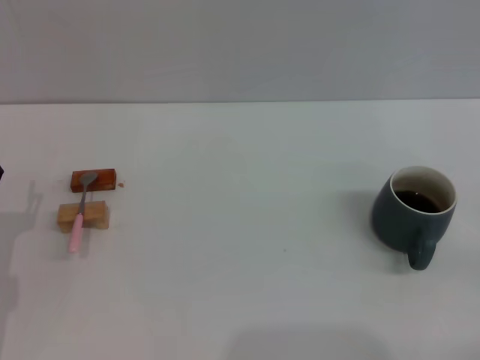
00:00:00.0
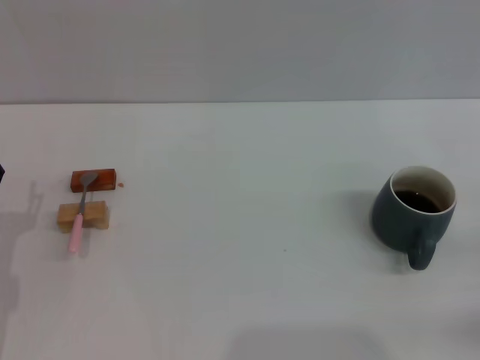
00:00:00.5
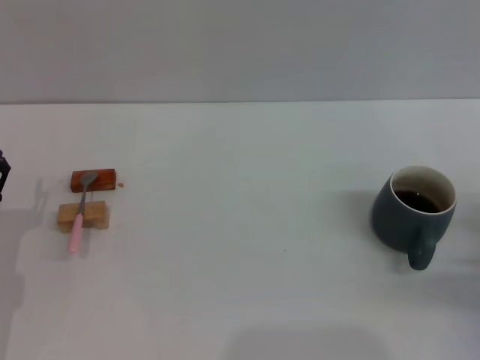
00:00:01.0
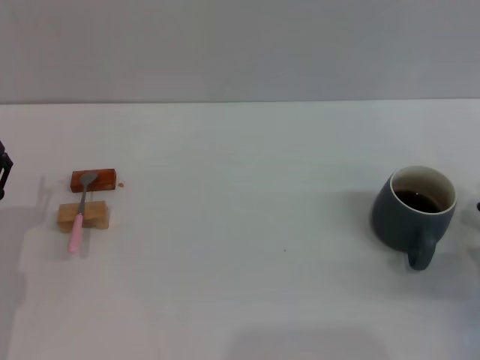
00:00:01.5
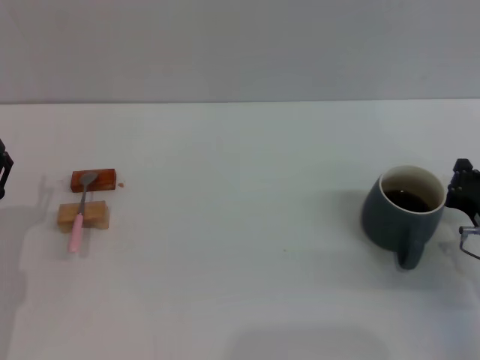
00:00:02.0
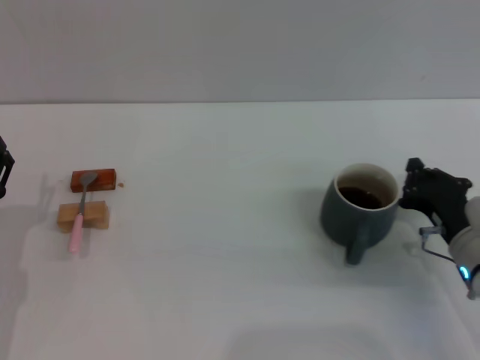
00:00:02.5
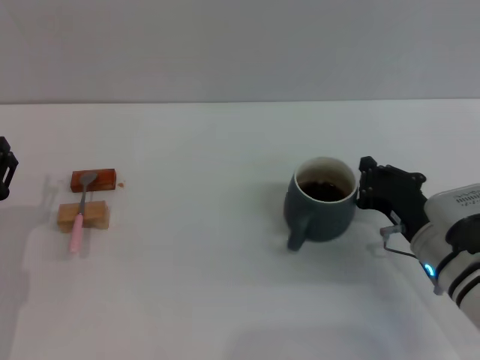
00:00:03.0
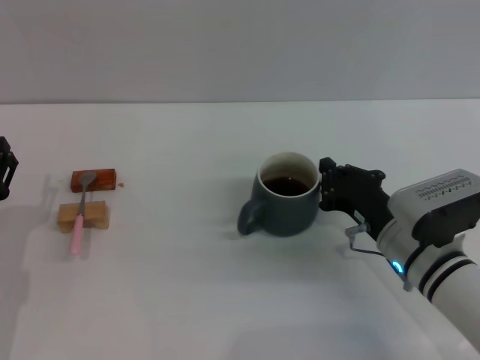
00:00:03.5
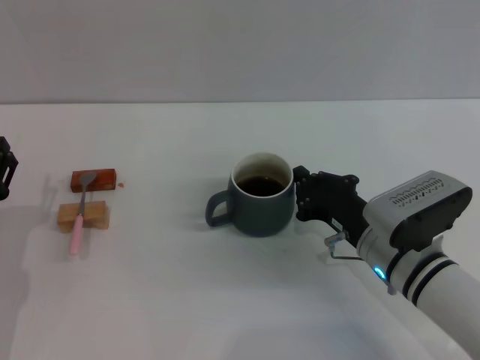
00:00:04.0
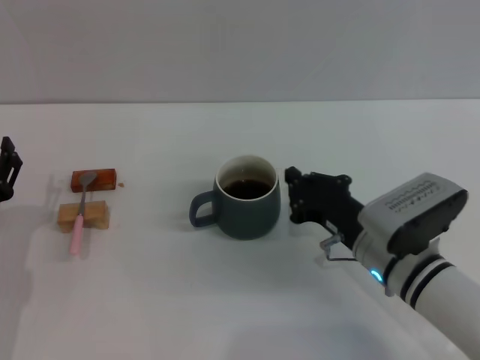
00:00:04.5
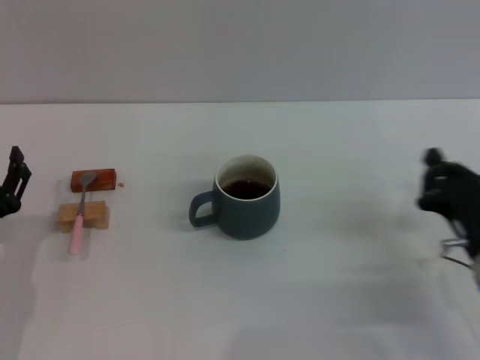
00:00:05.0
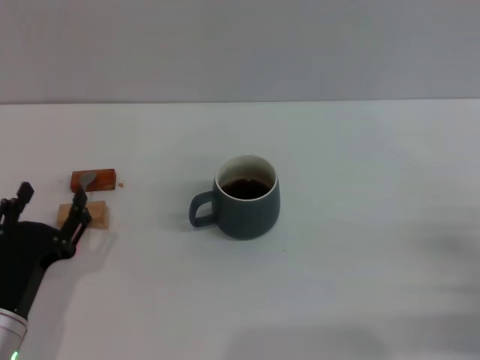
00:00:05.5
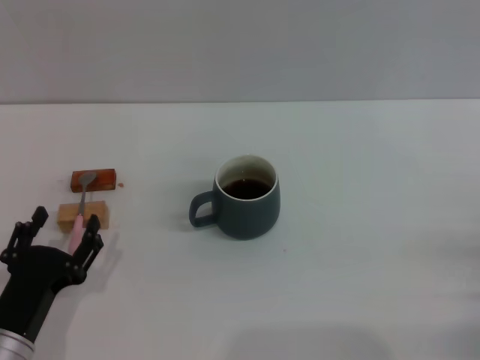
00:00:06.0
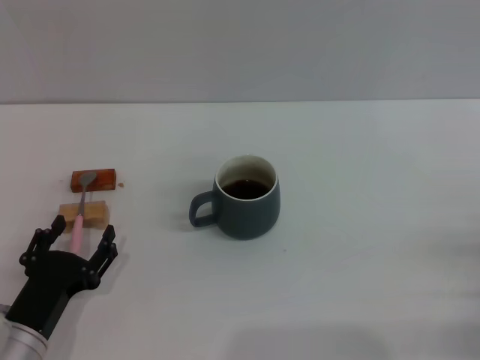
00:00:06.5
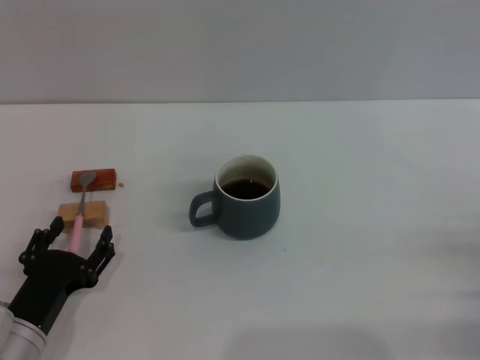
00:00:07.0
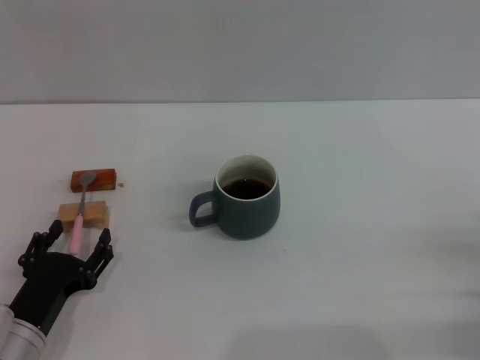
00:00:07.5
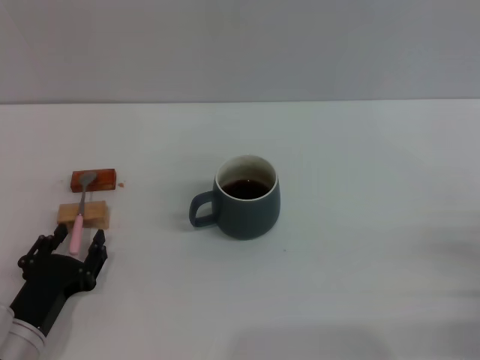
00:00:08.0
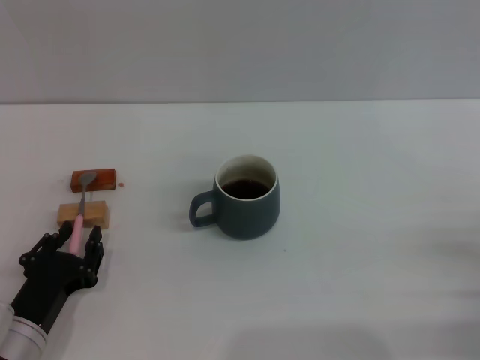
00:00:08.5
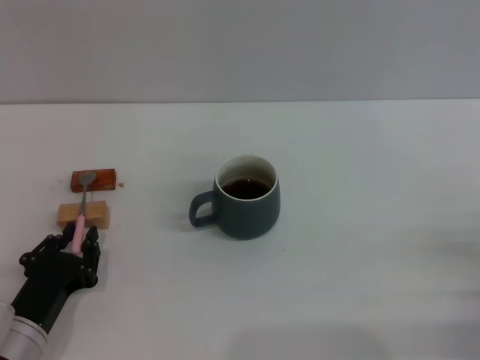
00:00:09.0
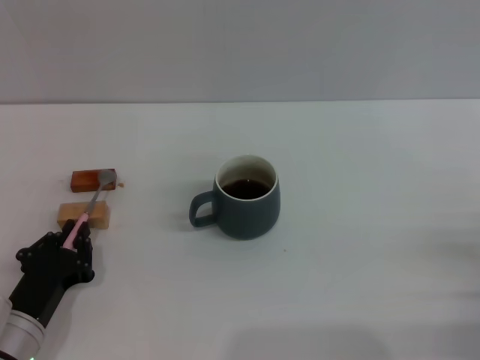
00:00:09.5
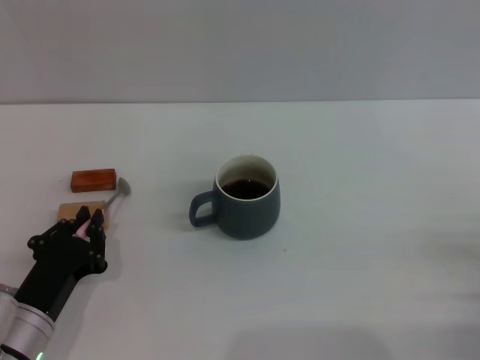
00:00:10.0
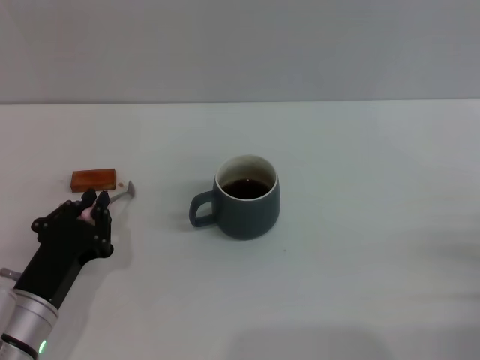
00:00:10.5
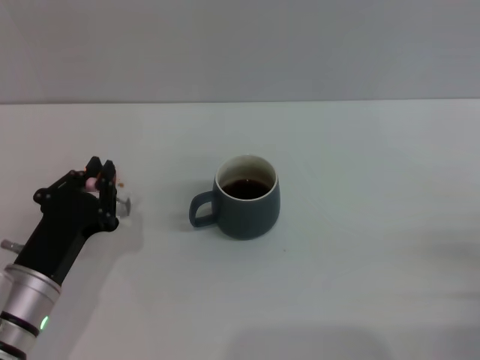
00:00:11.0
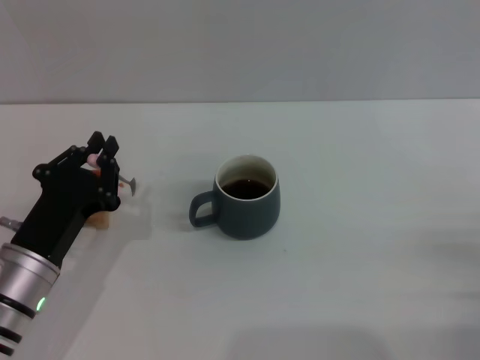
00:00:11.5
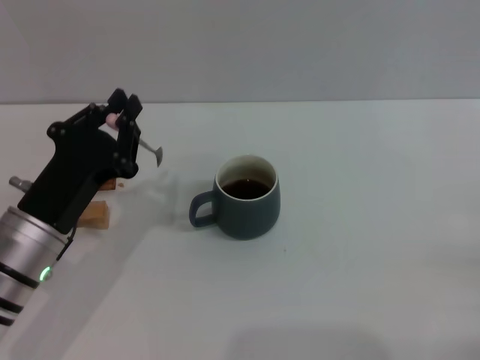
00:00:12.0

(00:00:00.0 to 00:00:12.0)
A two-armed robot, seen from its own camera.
Task of the whole recording: Move the grey cup to the center, lift the pink spoon, stir it three times in the cup, and put the spoon into the cup.
Step, 00:00:00.0 - 00:00:04.5: Move the cup with coffee to the center of view with the right gripper.
Step, 00:00:05.0 - 00:00:11.5: Pick up the spoon with the left gripper.
00:00:00.0 - 00:00:02.0: The right gripper moves forward and to the left, roughly 15 cm.
00:00:02.0 - 00:00:04.0: The right gripper moves to the left, some 10 cm.
00:00:04.0 - 00:00:06.0: The left gripper heads backward and to the right, covering roughly 10 cm. The right gripper shifts some 20 cm to the right and backward.
00:00:06.0 - 00:00:08.0: The grippers move only a little.
00:00:08.0 - 00:00:10.0: The left gripper closes up.
00:00:10.0 - 00:00:12.0: The left gripper goes some 10 cm upward.

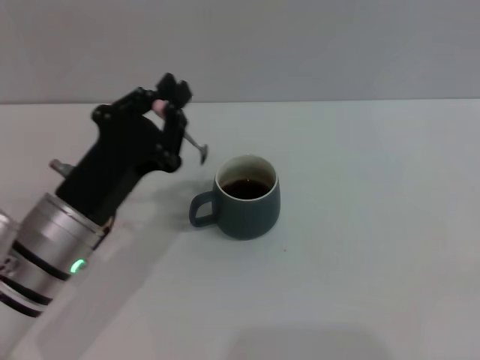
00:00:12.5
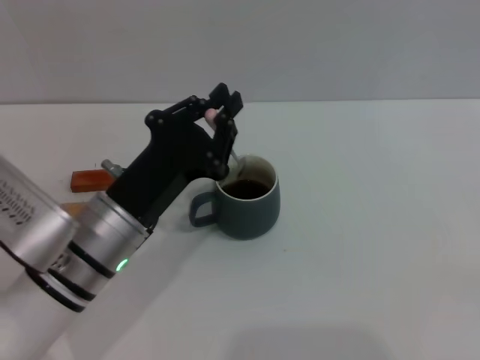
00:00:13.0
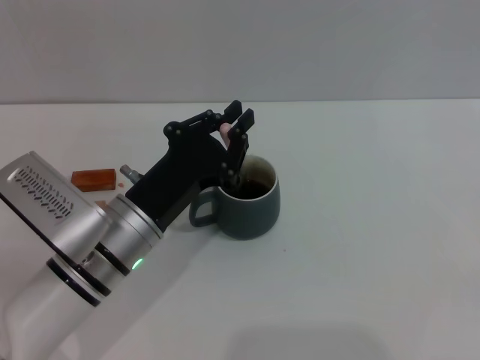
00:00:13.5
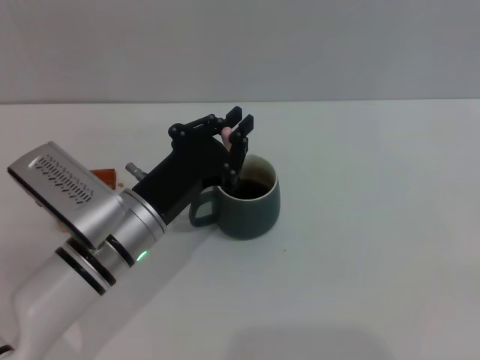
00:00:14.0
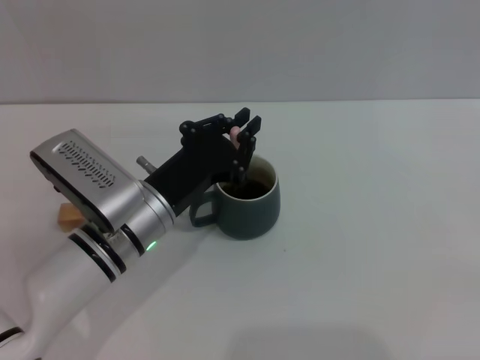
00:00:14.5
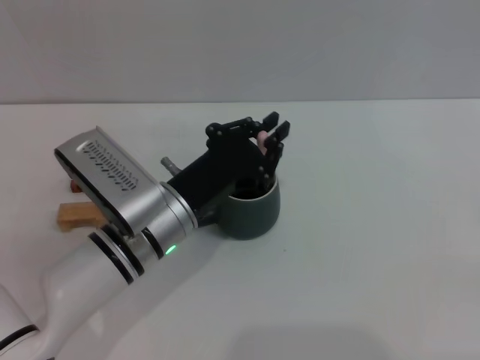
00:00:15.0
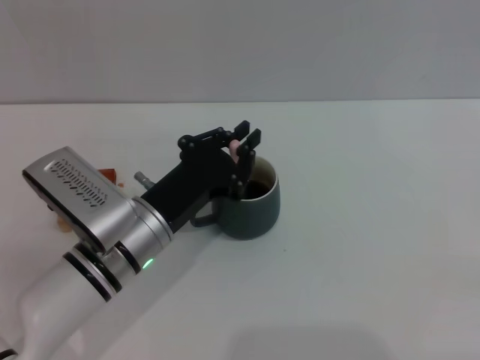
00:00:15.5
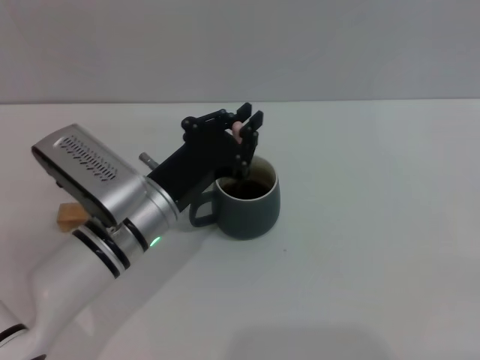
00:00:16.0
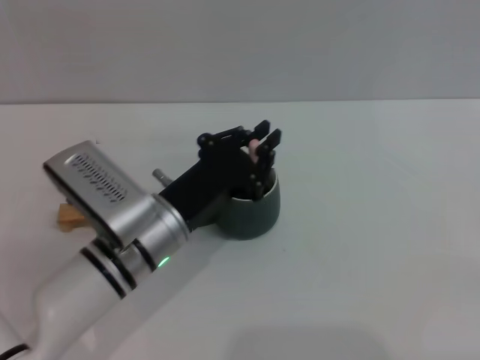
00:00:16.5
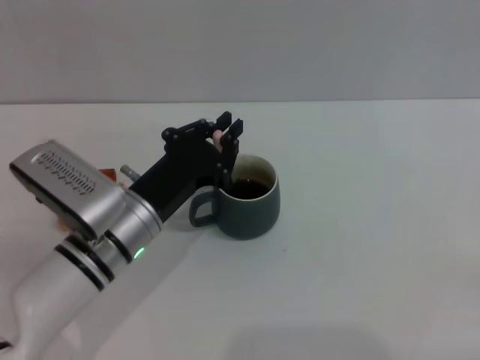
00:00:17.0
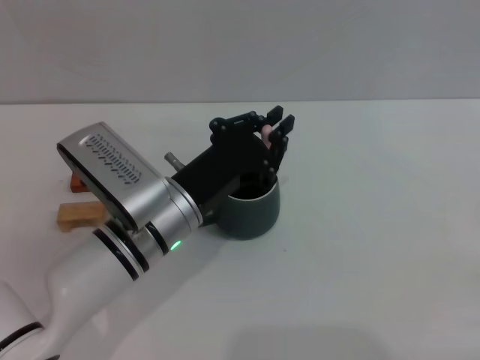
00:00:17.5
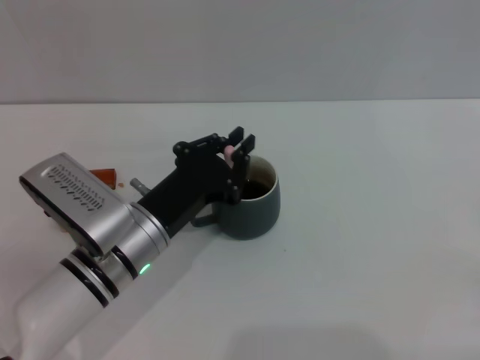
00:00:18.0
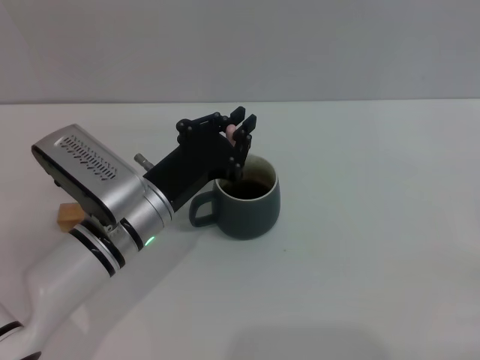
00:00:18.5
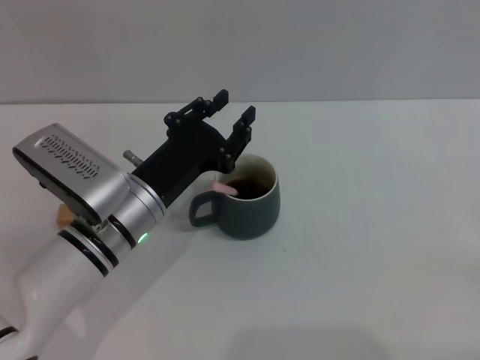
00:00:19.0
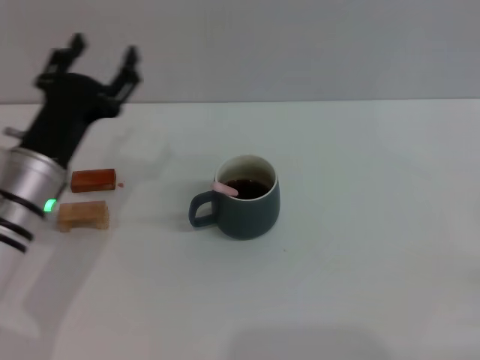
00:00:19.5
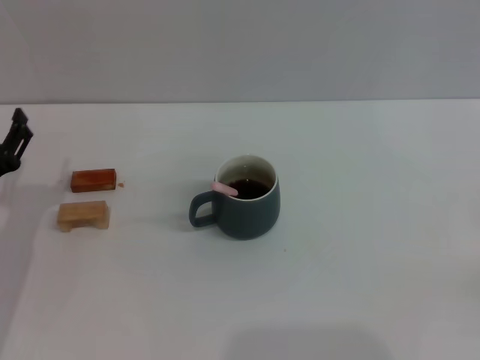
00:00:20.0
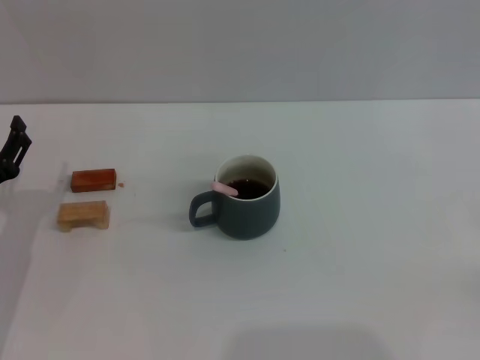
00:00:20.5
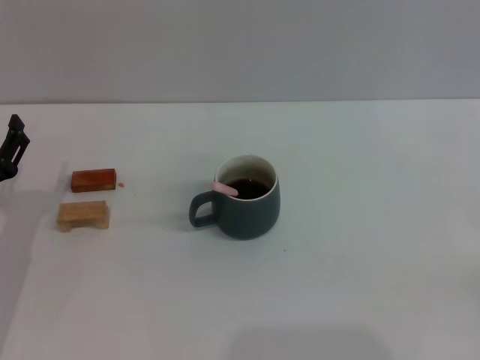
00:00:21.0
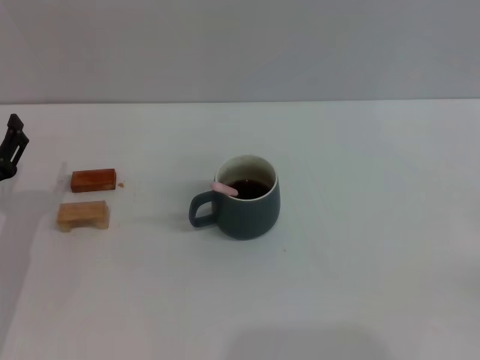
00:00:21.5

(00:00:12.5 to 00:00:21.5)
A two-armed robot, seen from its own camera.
Task of the whole recording: Move the grey cup to the center, lift the pink spoon, stir it three times in the cup, and put the spoon into the cup.
Step, 00:00:12.5 - 00:00:19.0: Stir the coffee in the cup with the left gripper.
00:00:12.5 - 00:00:14.5: The left gripper ends up roughly 5 cm from where it was.
00:00:14.5 - 00:00:17.0: The grippers move only a little.
00:00:17.0 - 00:00:19.5: The left gripper is displaced to the left by roughly 5 cm, and opens up.
00:00:19.5 - 00:00:21.5: The left gripper heads to the left and downward, covering some 10 cm.
